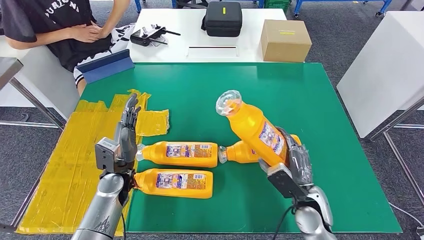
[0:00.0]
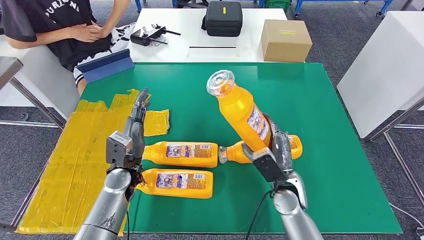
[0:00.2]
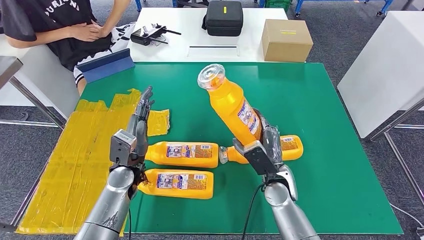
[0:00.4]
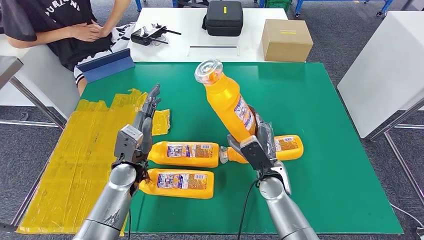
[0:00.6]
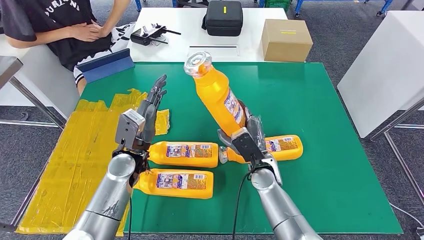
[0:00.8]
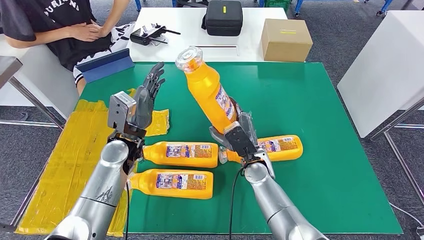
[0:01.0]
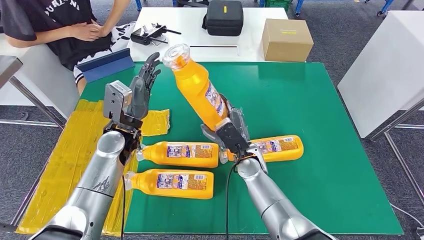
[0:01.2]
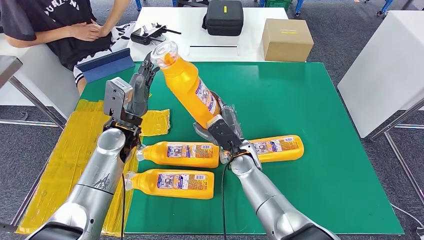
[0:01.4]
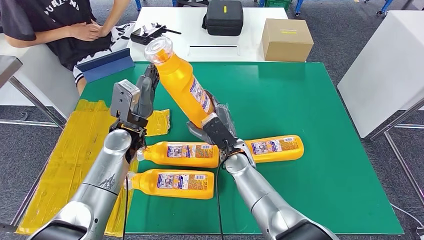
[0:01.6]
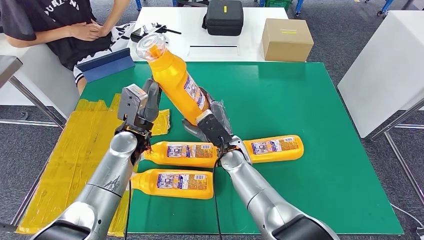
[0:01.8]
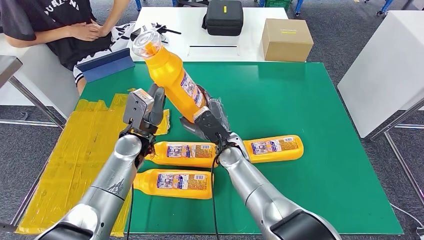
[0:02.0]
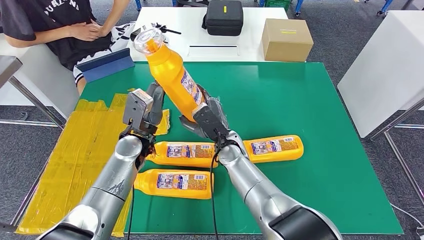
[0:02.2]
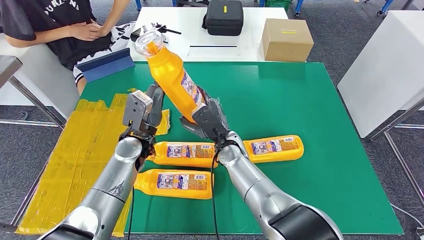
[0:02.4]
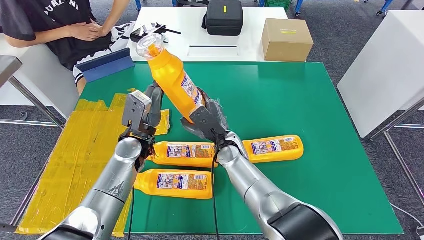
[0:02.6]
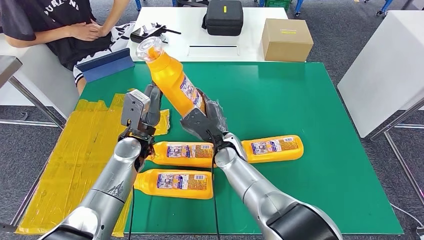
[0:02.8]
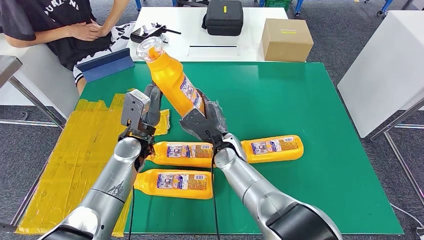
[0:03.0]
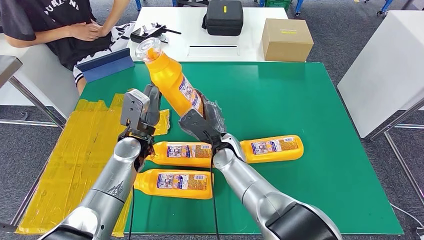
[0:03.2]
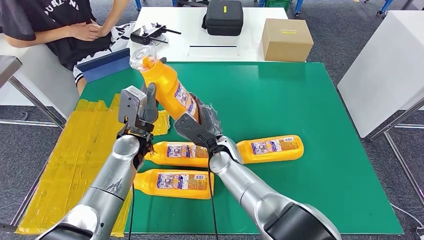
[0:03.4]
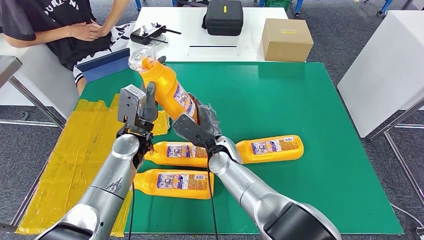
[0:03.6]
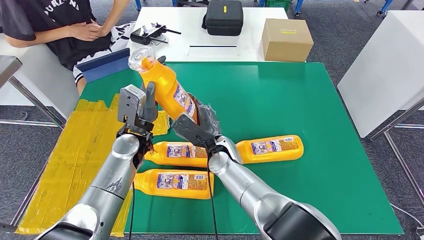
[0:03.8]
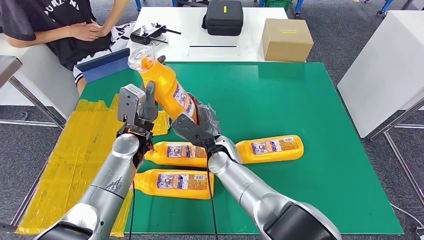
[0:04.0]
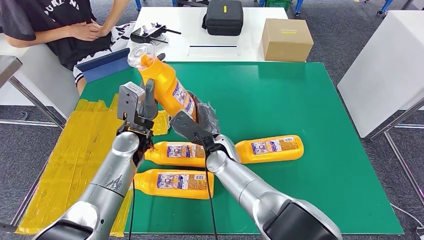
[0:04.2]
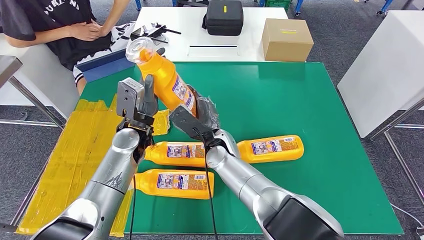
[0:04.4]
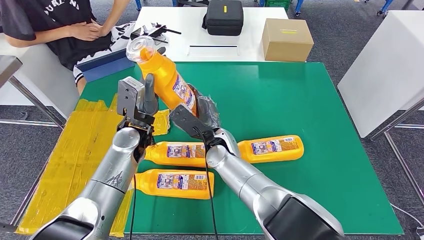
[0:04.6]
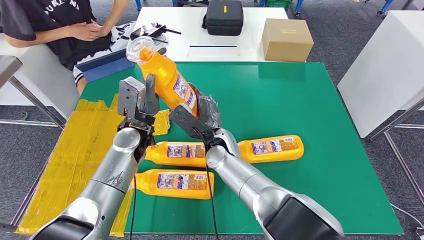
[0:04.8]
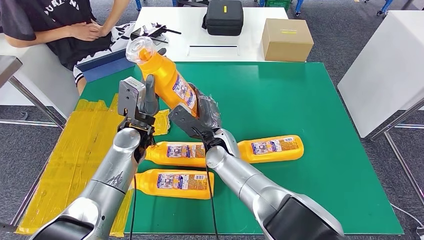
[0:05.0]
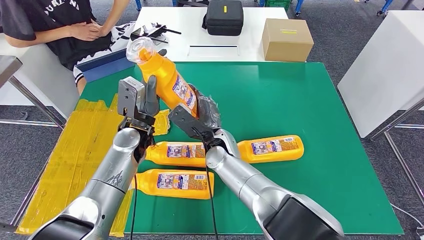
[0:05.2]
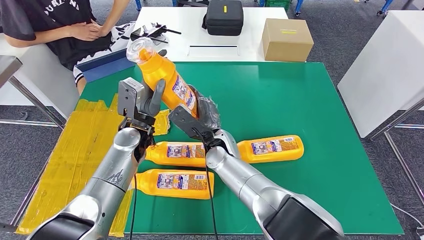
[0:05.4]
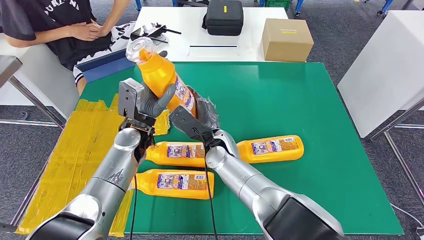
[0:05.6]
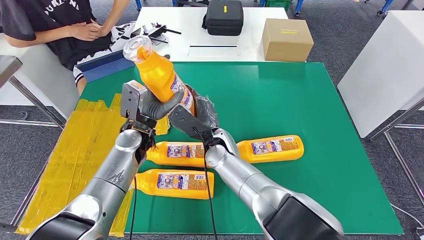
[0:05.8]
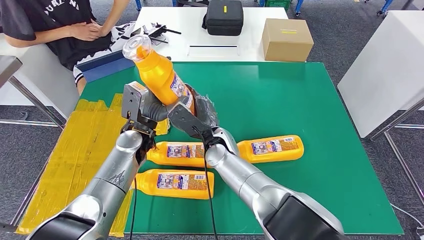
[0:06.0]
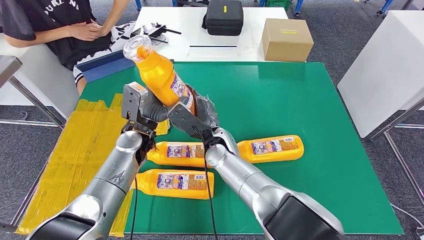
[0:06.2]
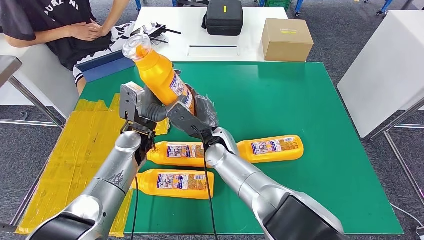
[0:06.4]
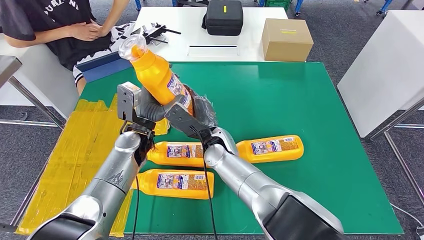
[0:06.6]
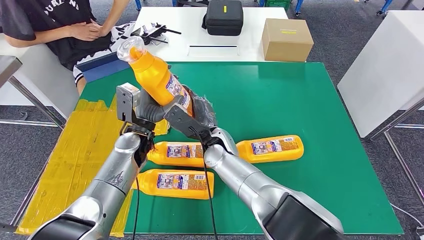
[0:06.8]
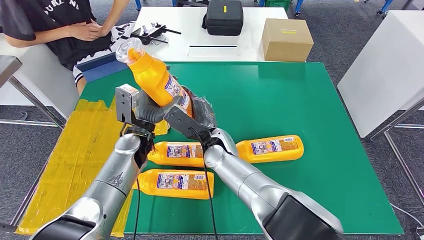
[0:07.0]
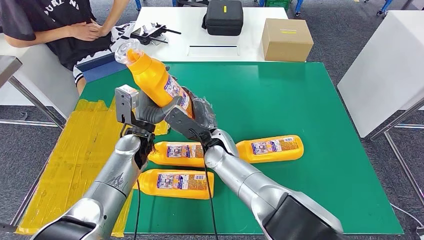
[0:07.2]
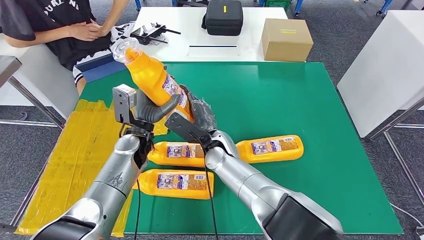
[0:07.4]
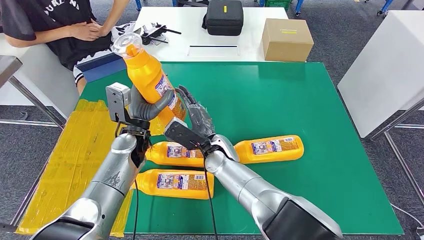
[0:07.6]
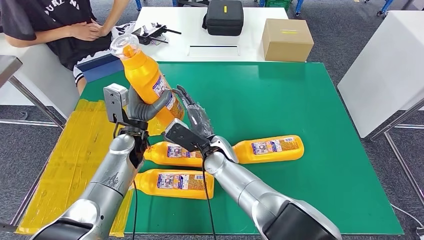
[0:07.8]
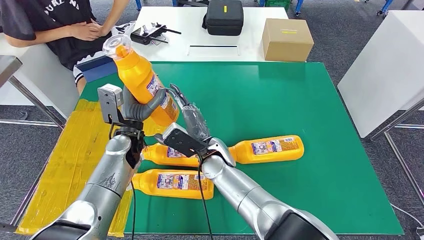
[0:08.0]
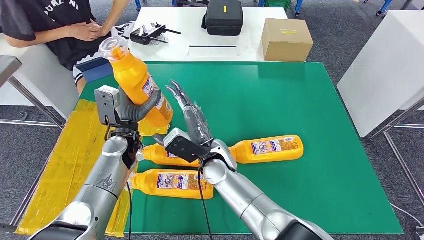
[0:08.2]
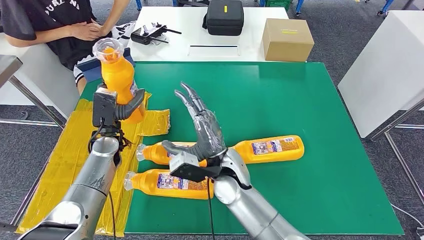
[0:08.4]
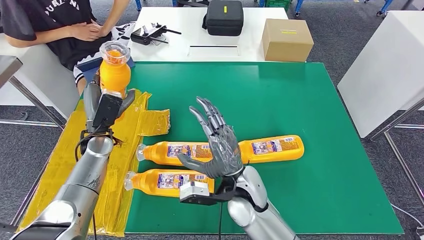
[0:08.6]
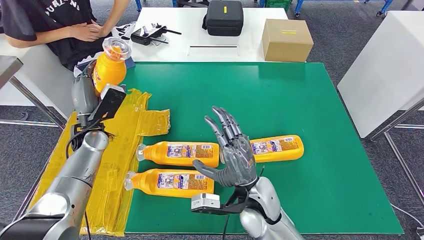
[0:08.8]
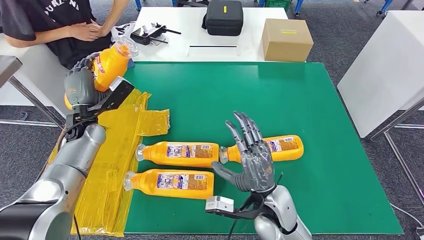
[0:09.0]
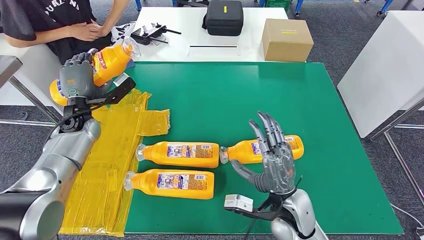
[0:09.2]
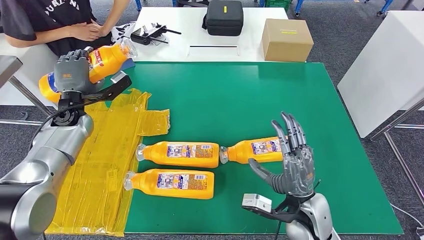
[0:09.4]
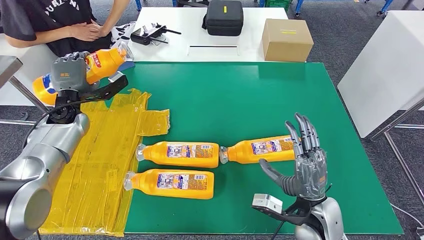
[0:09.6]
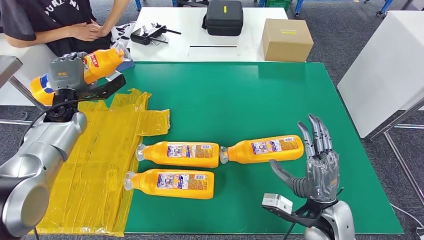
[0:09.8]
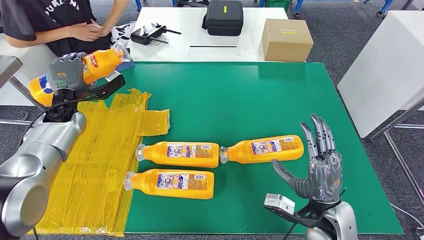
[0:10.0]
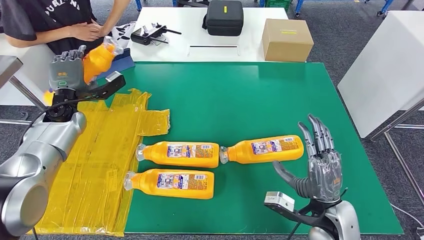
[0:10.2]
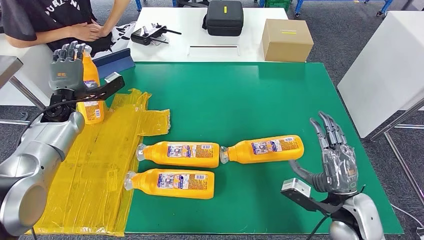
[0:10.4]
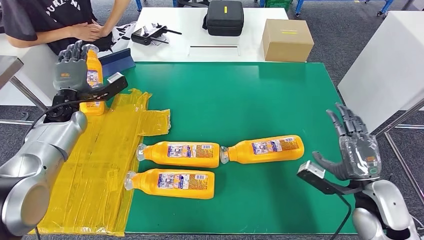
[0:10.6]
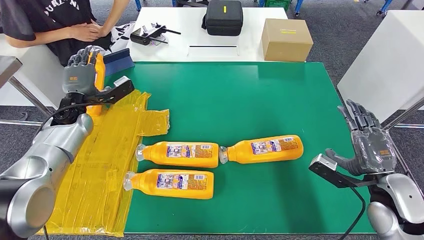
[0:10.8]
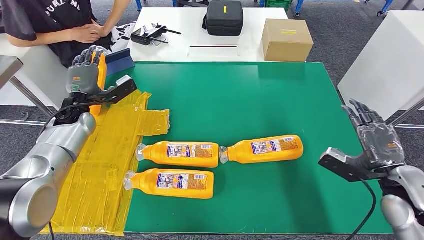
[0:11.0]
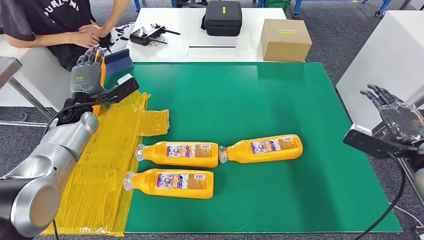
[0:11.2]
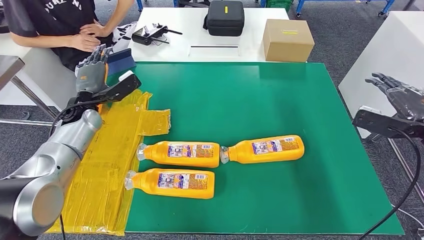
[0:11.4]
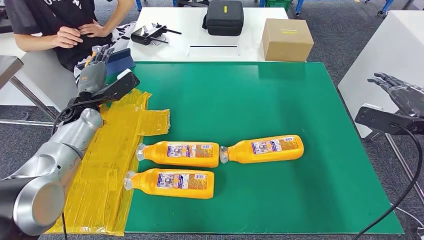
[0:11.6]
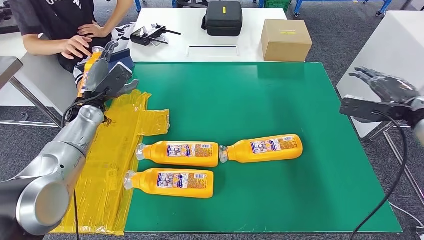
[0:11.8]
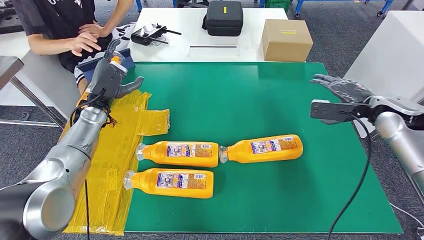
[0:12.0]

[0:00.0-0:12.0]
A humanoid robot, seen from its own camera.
0:01.6 to 0:03.0: There are only small adjustments of the hands.
0:03.0 to 0:07.6: The hands move only a little.

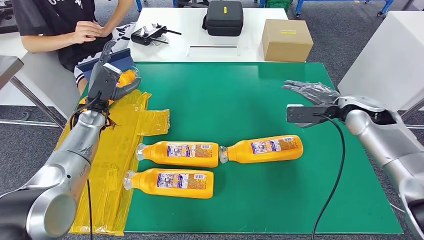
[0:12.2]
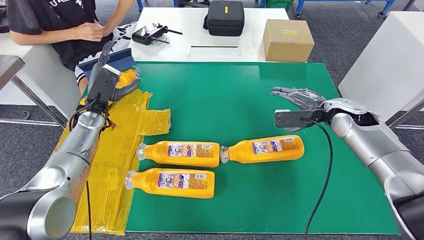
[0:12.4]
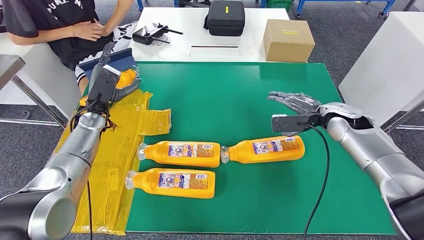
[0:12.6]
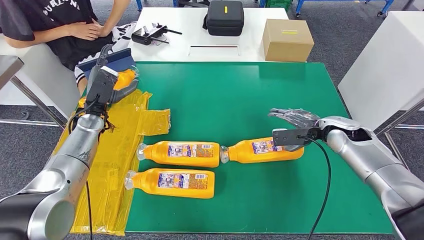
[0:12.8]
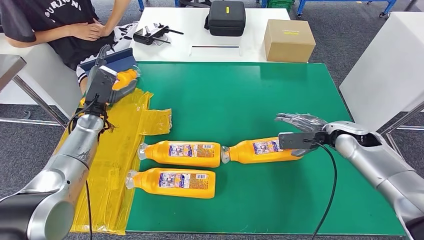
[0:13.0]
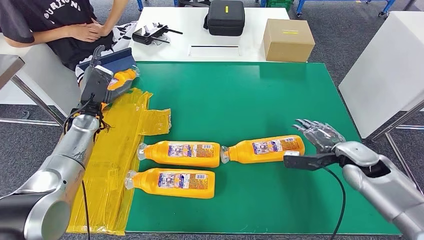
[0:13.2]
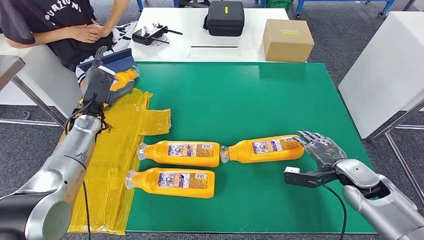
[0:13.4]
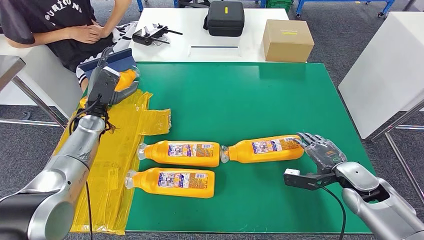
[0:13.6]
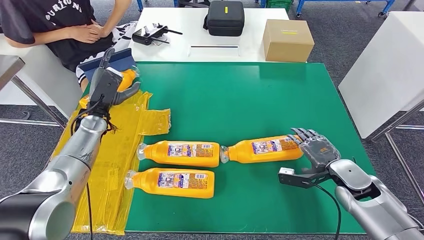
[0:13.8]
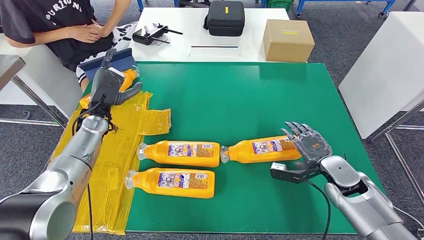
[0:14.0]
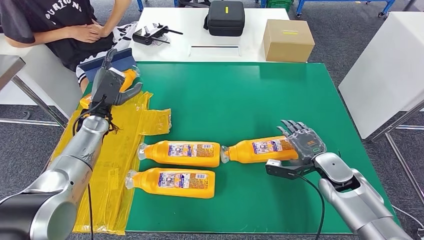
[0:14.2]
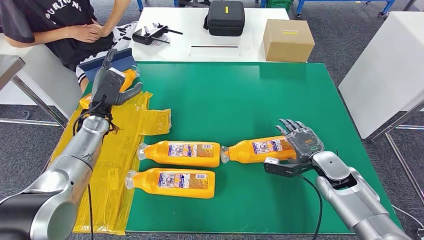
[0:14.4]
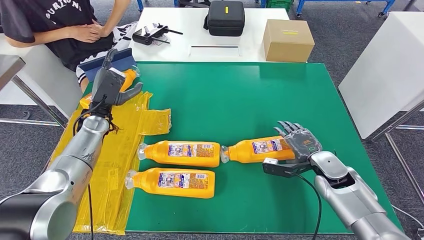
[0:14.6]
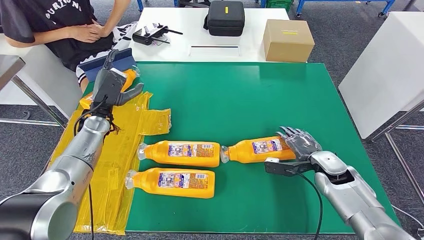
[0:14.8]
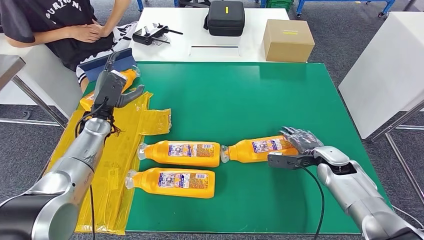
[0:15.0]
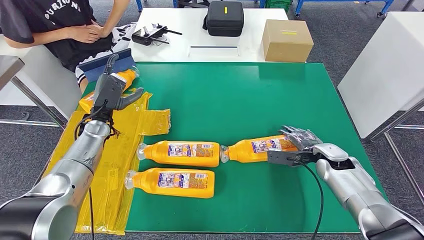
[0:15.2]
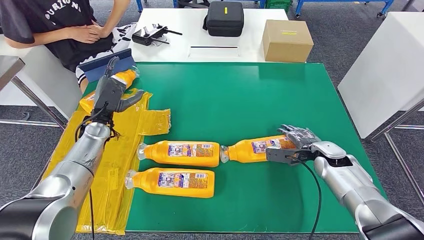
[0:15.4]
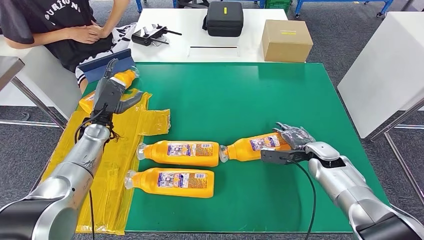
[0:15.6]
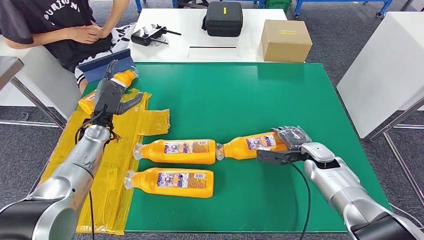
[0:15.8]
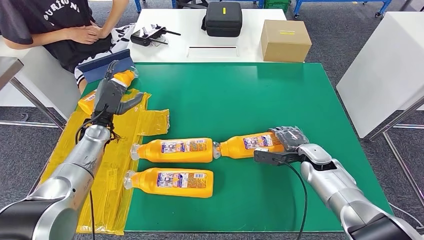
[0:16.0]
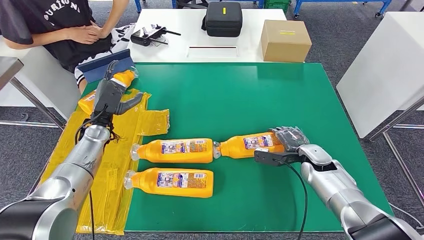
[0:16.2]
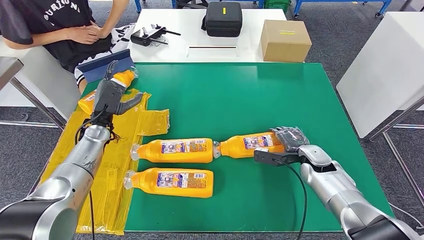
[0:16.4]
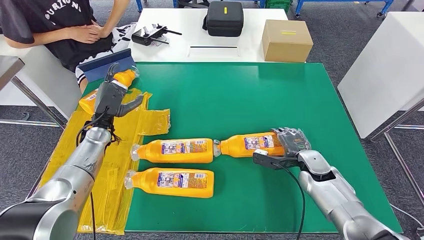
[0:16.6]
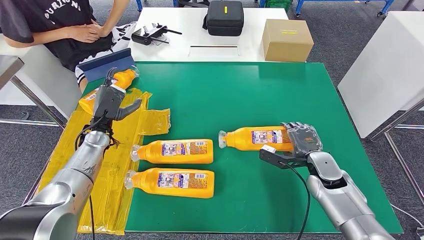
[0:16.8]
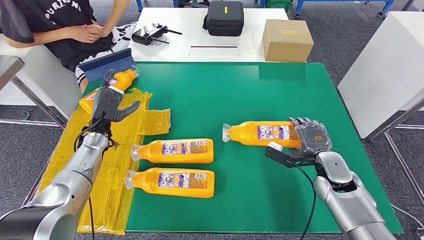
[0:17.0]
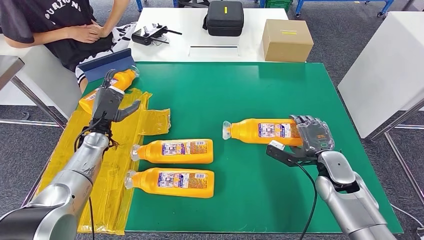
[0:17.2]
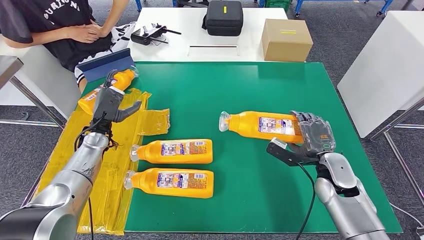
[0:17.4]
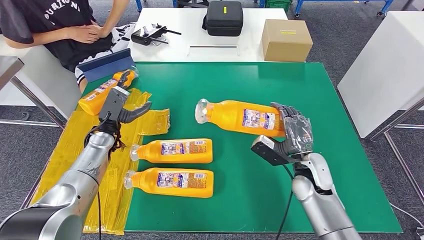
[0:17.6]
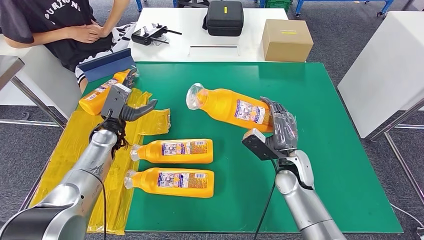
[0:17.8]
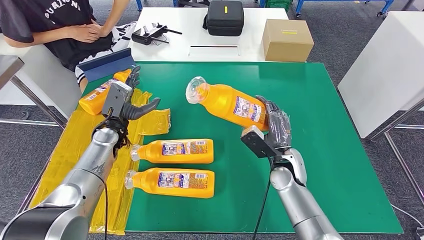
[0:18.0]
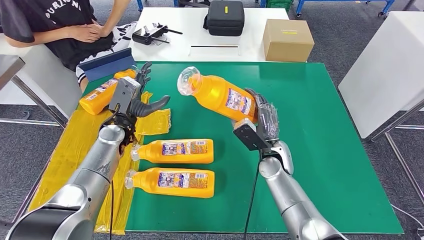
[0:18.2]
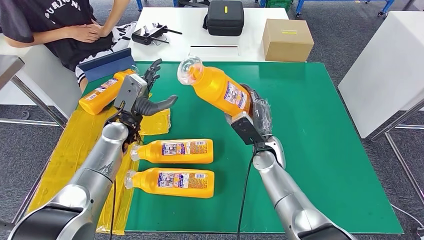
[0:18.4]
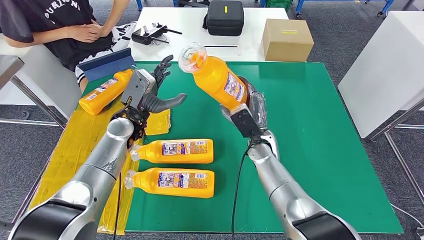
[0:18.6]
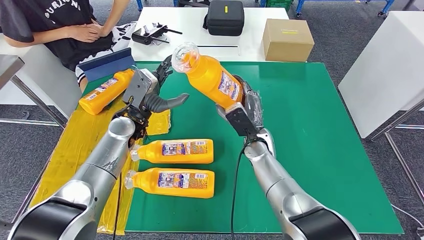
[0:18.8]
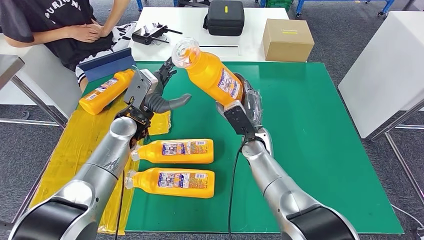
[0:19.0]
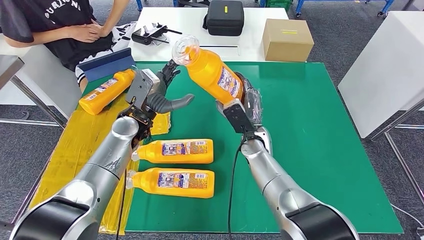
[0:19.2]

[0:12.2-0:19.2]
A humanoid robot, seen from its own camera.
Step, 0:12.8 to 0:18.8: Pick up the fast-moving consumer goods bottle from the table.
0:13.6 to 0:15.0: The right hand shifts roughly 5 cm forward.
